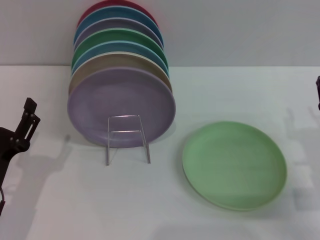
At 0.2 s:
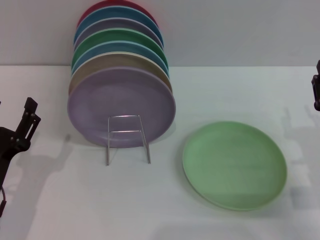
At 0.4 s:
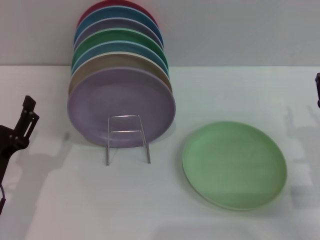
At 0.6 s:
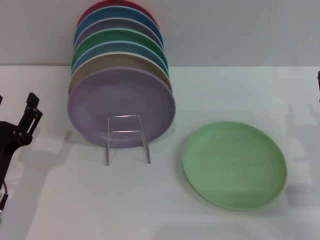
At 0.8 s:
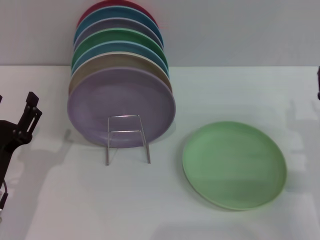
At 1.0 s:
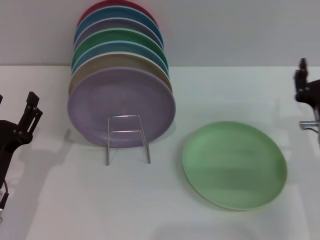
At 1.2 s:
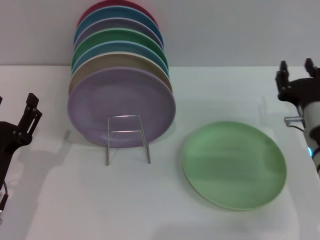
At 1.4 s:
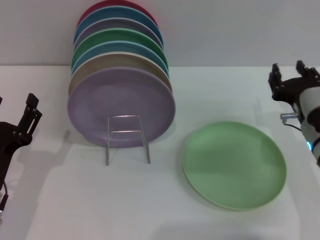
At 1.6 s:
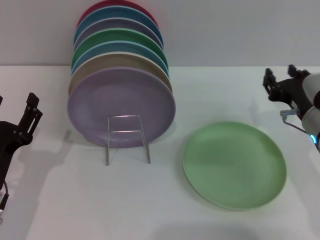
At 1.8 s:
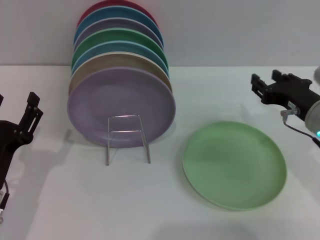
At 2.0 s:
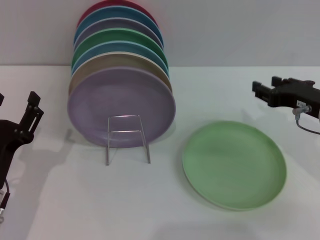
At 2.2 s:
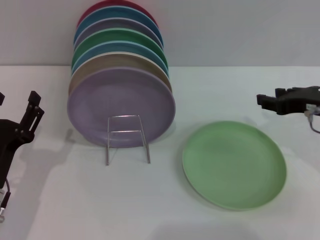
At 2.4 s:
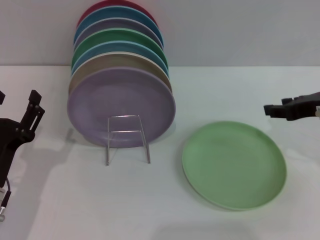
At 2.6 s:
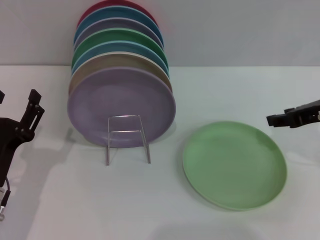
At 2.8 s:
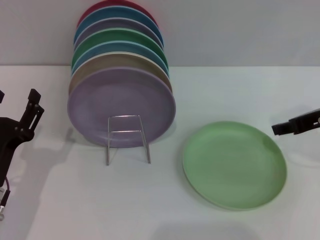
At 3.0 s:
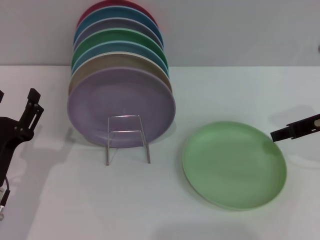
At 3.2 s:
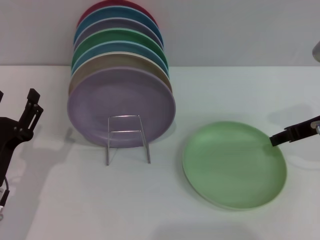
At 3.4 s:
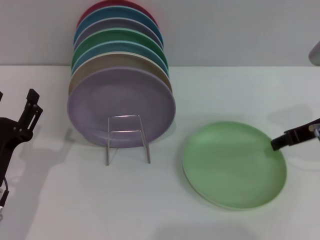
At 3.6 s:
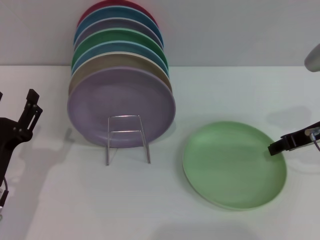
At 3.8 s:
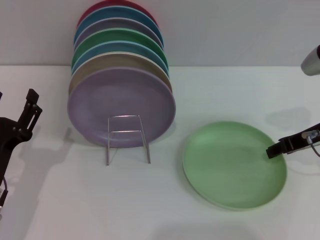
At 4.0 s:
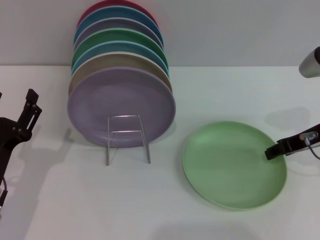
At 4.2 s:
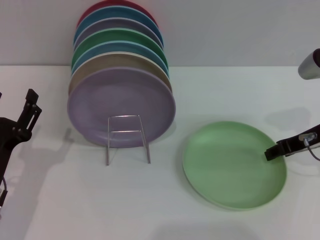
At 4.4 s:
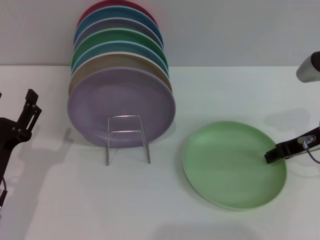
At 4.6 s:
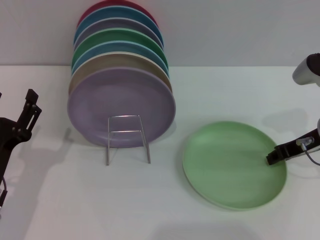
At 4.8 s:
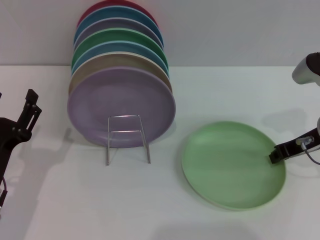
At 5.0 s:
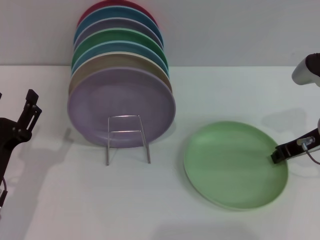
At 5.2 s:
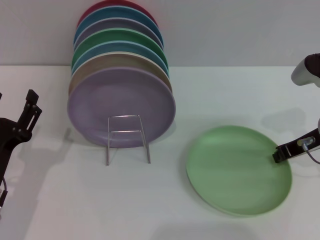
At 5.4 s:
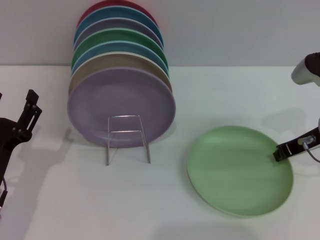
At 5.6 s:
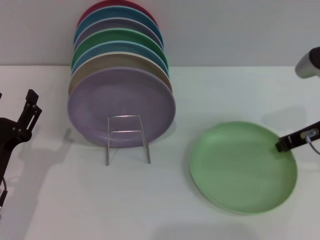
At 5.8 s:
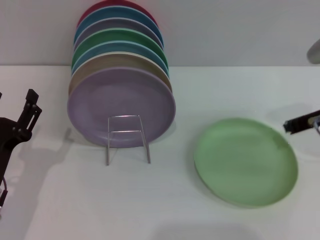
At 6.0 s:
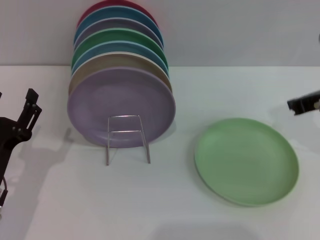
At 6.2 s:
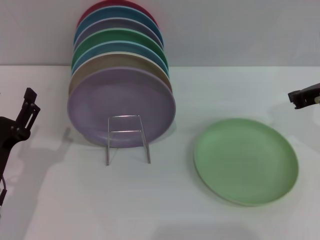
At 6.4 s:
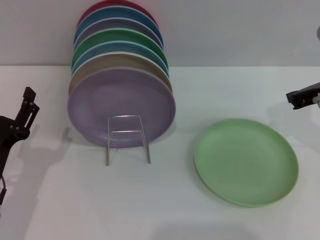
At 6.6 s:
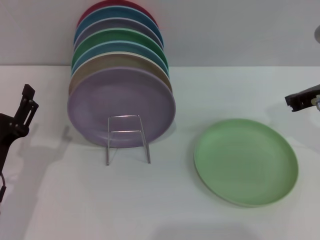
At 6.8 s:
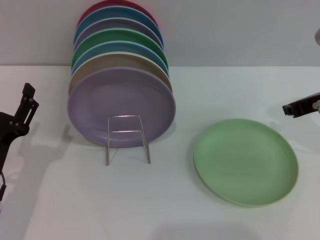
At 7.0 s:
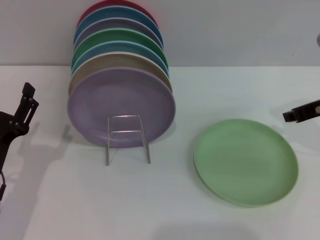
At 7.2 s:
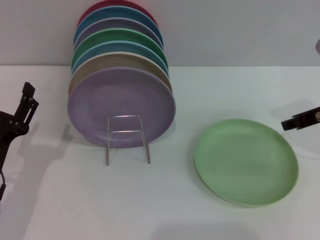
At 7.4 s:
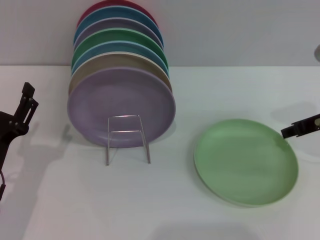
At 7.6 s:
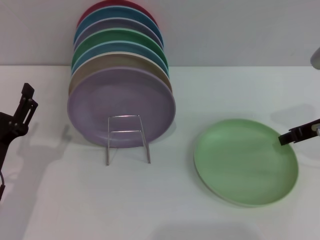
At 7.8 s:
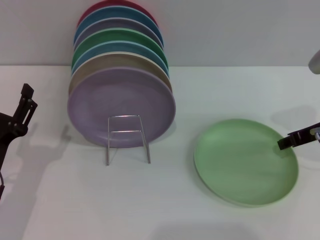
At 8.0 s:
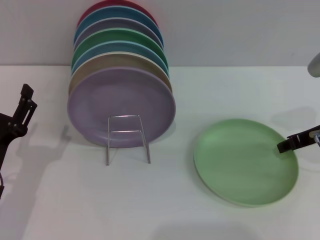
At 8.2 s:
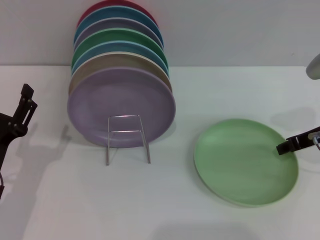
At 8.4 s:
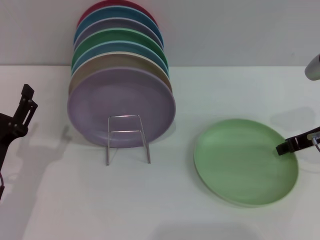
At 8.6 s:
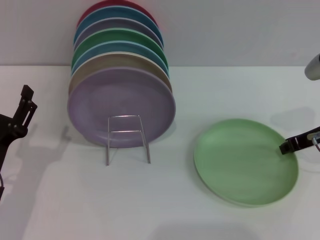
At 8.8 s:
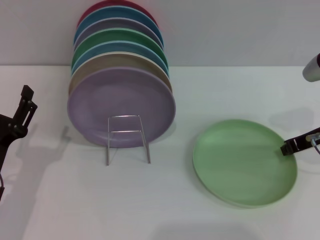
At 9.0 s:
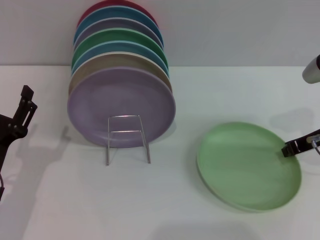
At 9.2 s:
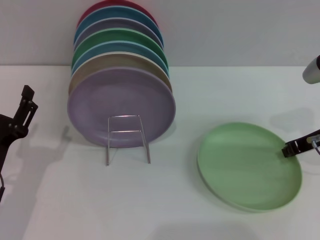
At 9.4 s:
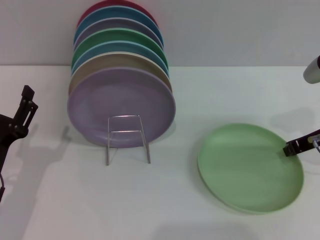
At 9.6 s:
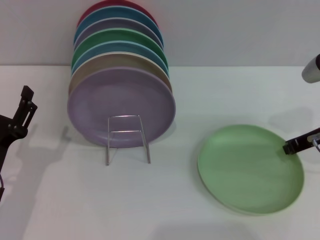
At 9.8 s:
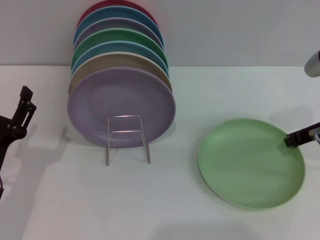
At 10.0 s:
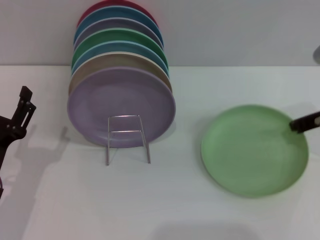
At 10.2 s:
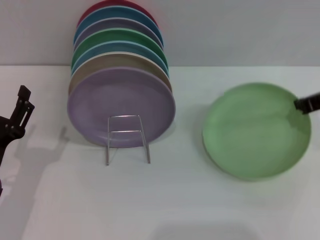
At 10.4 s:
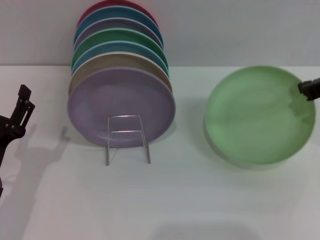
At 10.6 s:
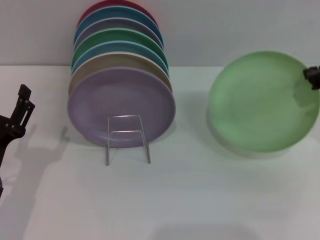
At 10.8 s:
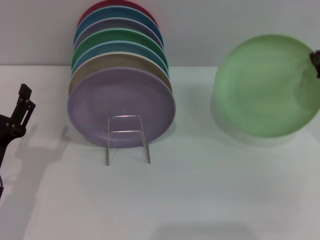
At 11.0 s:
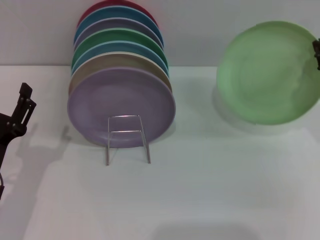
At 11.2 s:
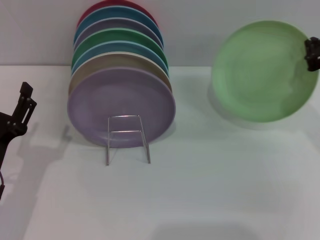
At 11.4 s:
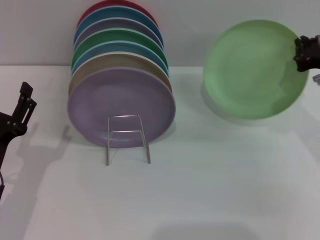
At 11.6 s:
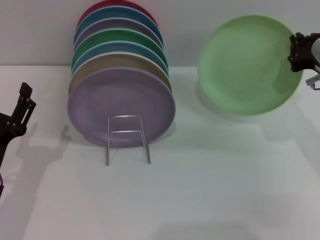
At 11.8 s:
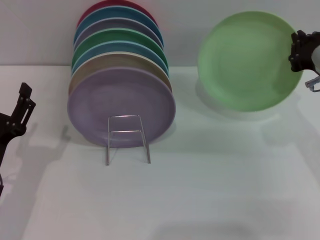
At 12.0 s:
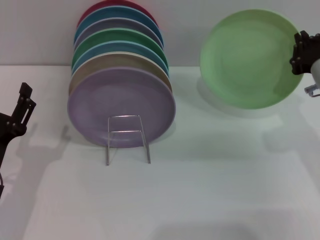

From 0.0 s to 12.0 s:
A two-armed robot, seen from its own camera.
Task of the whole recording: Grip the plate with one hand, pass it to the other, then set it on the shelf.
Step, from 0.0 s to 10.6 s: Pick up the plate with the right gripper.
From 0.0 s to 1.6 s: The right gripper travels forward by approximately 5 cm.
From 1.6 s to 3.0 s: The right gripper moves upward, roughly 10 cm.
From 3.0 s to 4.4 s: The grippers make only small movements.
From 4.4 s to 6.0 s: The right gripper heads upward, covering roughly 5 cm, and closes.
From 6.0 s to 7.6 s: The right gripper opens its fingers.
From 7.6 s to 9.0 s: The right gripper closes.
From 9.0 s to 10.4 s: The right gripper travels upward by some 5 cm.
From 10.4 s to 12.0 s: The right gripper heads downward, covering some 5 cm.

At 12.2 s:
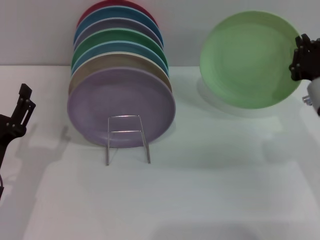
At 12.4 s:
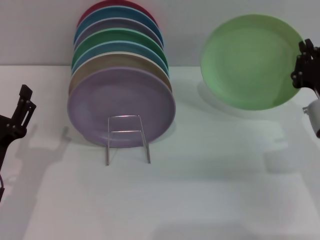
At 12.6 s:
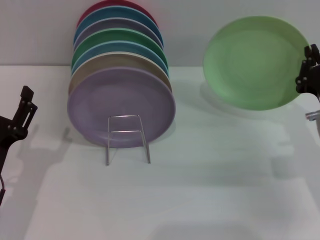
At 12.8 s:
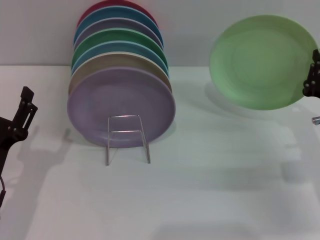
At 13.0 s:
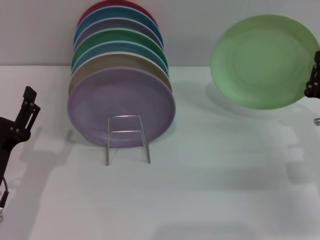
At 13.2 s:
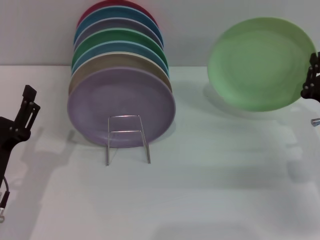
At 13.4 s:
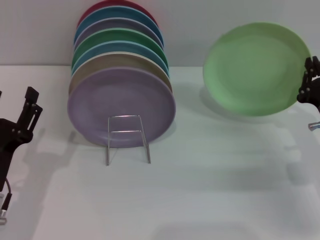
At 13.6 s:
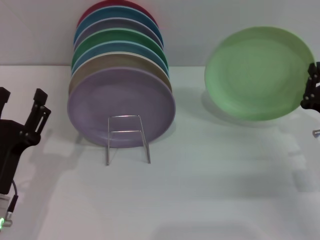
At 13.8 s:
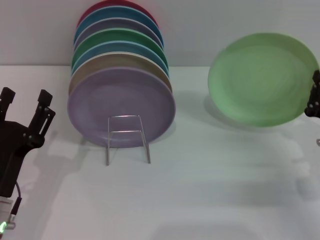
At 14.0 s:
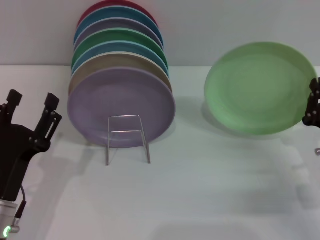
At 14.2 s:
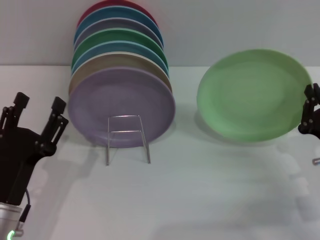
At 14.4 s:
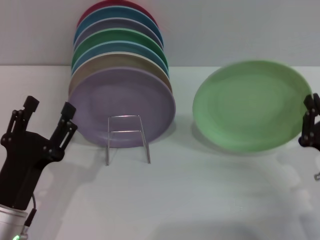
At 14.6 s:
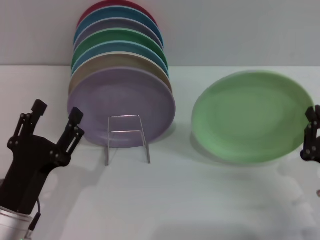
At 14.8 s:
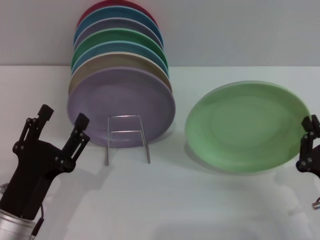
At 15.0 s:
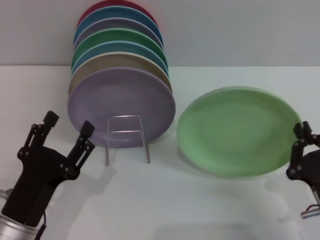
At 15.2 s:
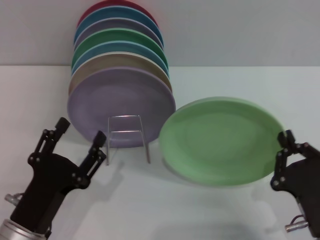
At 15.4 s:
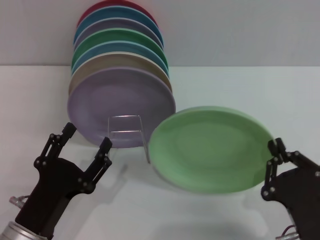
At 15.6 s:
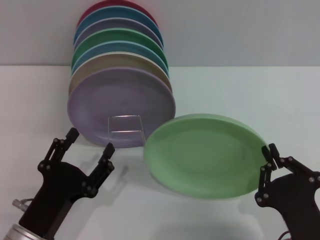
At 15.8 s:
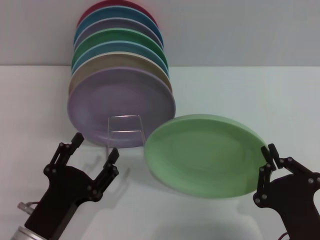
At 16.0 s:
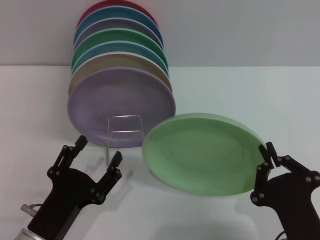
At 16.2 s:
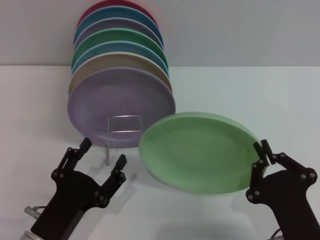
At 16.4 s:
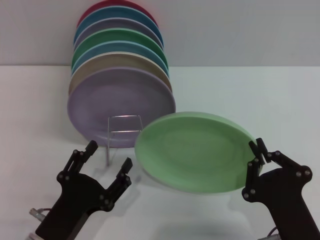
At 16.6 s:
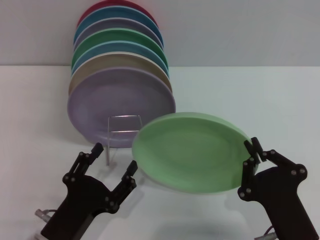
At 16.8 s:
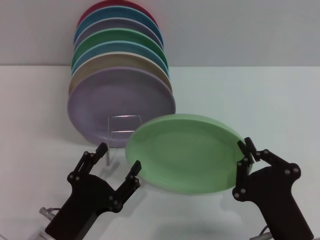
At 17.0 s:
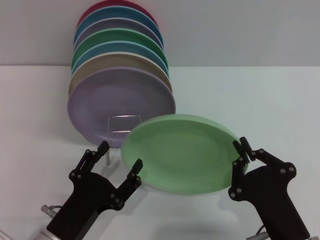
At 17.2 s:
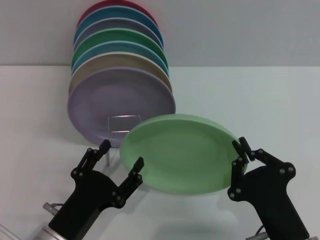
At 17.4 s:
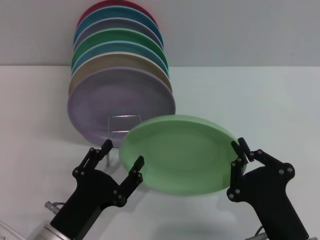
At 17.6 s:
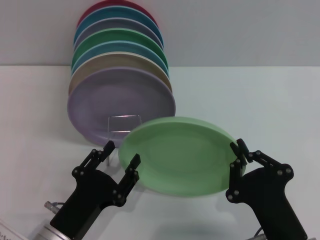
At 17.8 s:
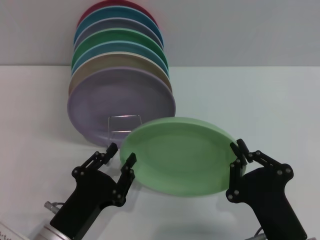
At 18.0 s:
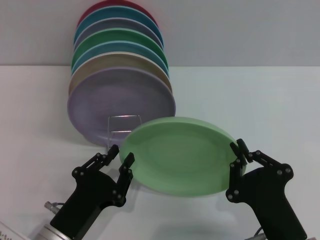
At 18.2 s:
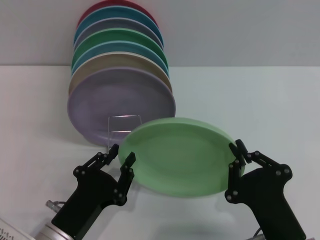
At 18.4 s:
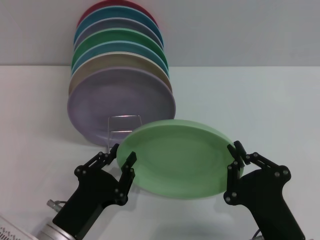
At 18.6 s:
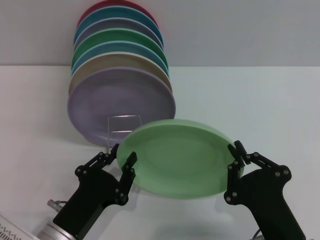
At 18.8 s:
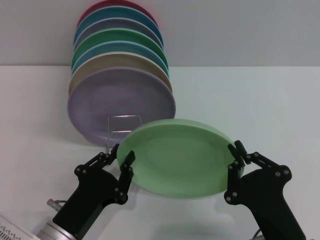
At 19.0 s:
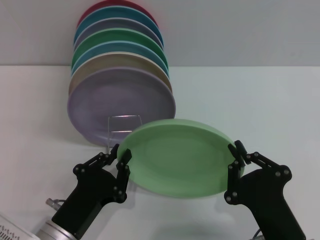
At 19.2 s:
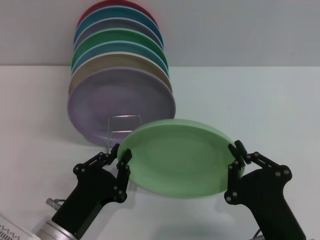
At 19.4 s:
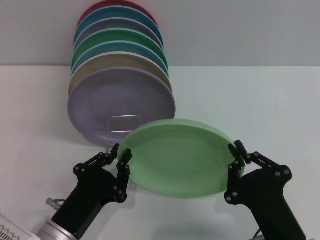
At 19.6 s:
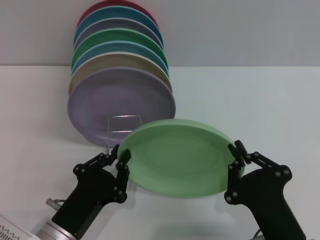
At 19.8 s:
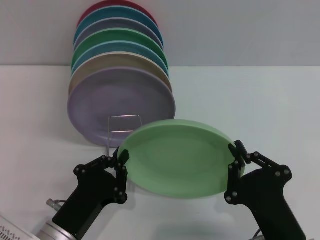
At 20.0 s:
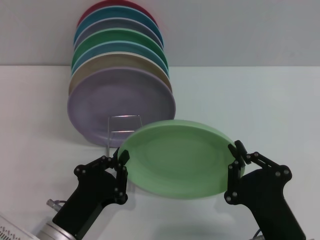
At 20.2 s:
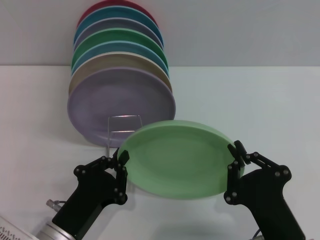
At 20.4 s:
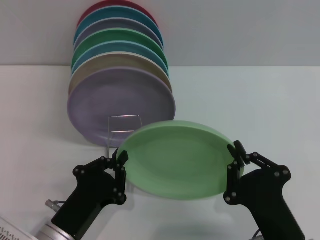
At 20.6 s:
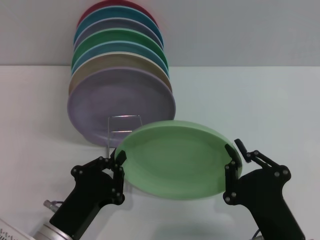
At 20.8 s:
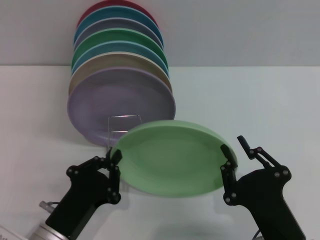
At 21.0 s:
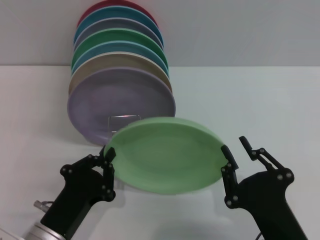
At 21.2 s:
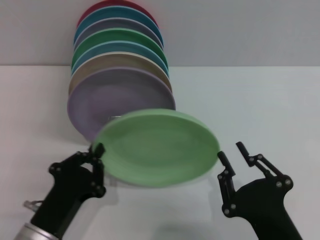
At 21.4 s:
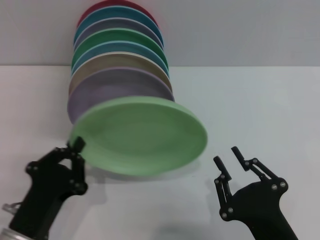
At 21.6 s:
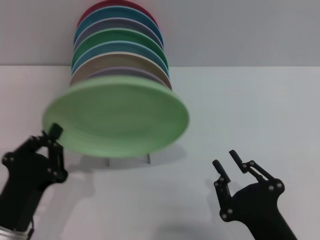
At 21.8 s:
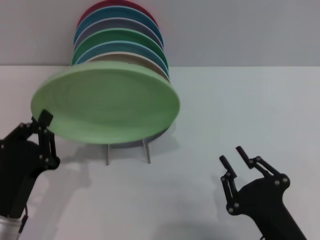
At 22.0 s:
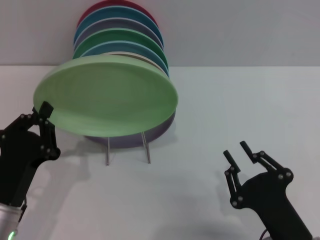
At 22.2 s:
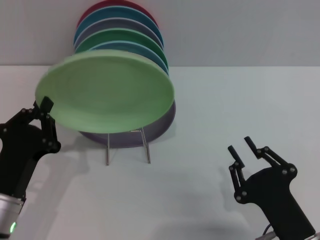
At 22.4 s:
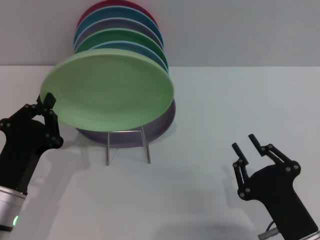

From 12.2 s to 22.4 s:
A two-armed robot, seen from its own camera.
Task of the whole recording: Grip the plate with one hand, pass it to the other, then set it on the shelf.
Step, from 12.2 s to 21.2 s: Pass the plate from the right gripper to the left gripper.
From 12.2 s to 13.6 s: The right gripper is displaced downward by some 5 cm.
From 13.6 s to 15.2 s: The left gripper ends up approximately 5 cm from where it was. Meanwhile the right gripper travels backward and to the left by approximately 15 cm.
From 15.2 s to 16.6 s: The right gripper moves some 5 cm.
From 16.6 s to 18.0 s: The left gripper closes its fingers.
From 18.0 s to 19.4 s: The two grippers keep their place.
From 19.4 s to 21.0 s: The right gripper opens up.
From 21.0 s to 22.4 s: The left gripper shifts by roughly 5 cm.
